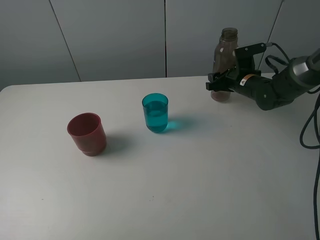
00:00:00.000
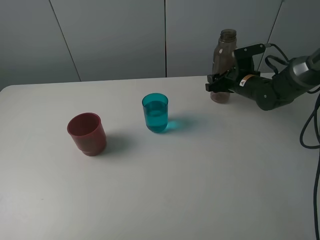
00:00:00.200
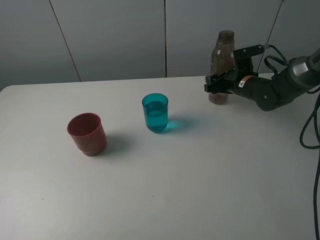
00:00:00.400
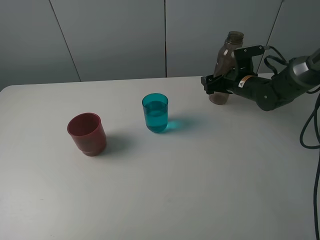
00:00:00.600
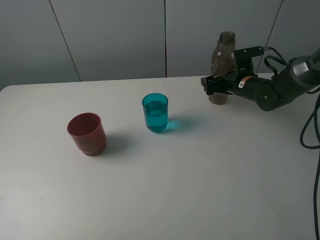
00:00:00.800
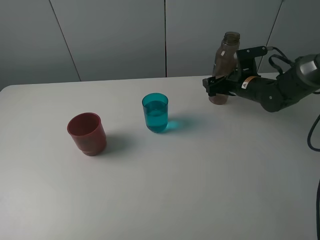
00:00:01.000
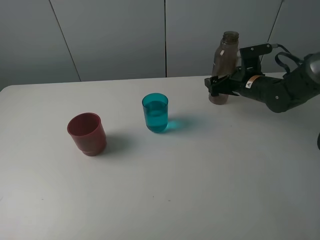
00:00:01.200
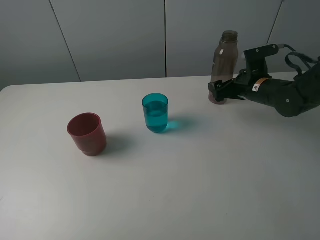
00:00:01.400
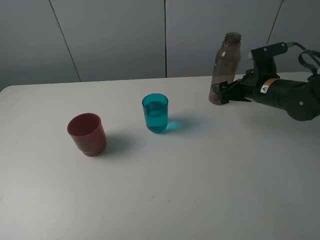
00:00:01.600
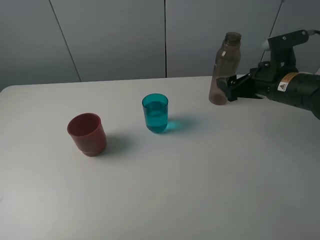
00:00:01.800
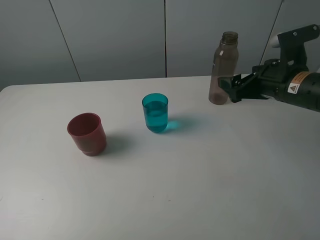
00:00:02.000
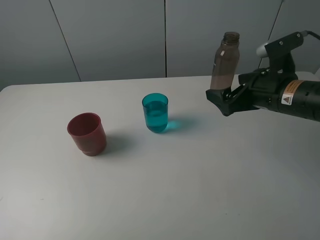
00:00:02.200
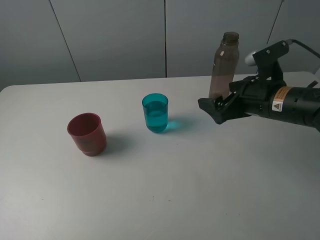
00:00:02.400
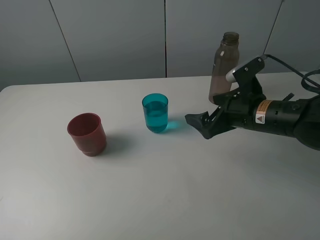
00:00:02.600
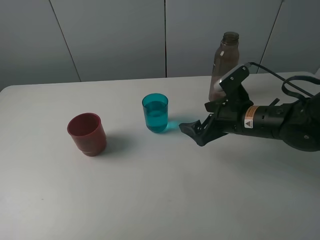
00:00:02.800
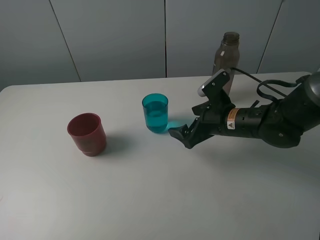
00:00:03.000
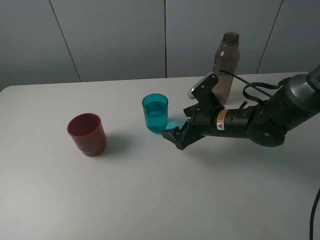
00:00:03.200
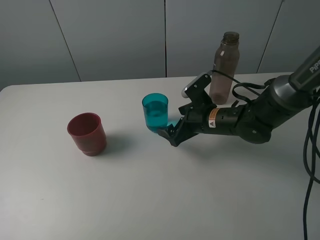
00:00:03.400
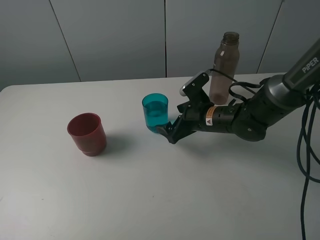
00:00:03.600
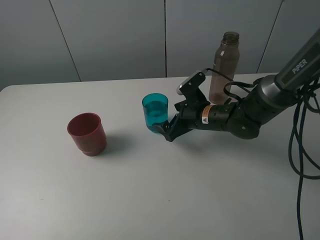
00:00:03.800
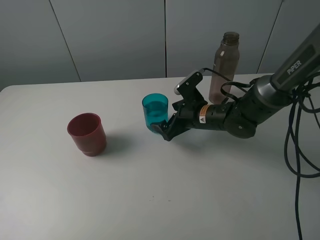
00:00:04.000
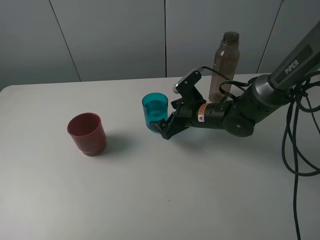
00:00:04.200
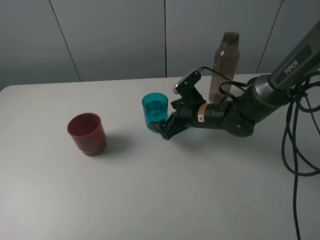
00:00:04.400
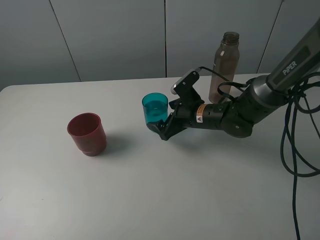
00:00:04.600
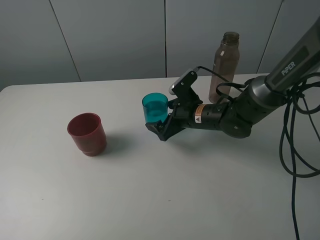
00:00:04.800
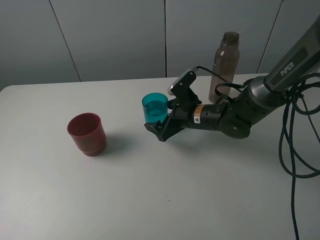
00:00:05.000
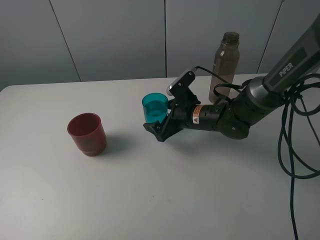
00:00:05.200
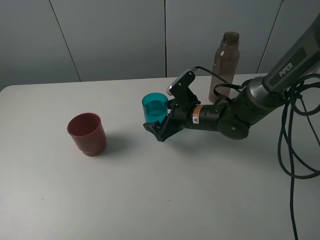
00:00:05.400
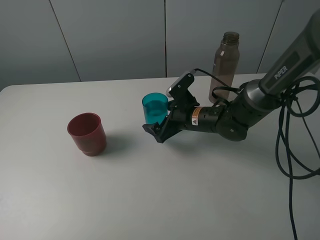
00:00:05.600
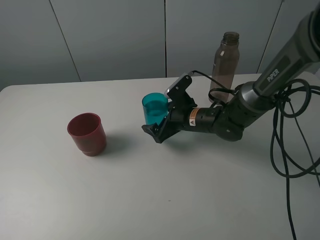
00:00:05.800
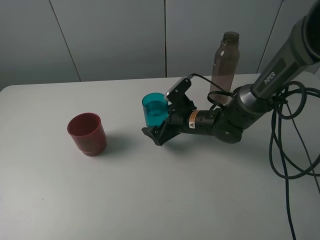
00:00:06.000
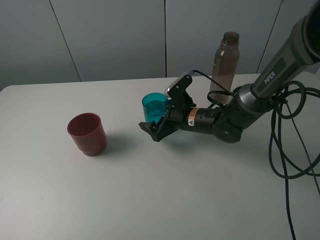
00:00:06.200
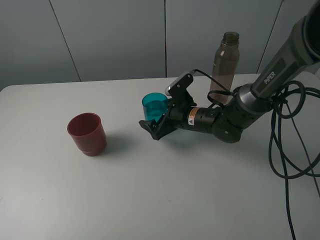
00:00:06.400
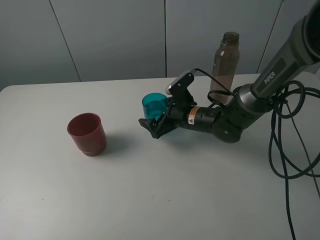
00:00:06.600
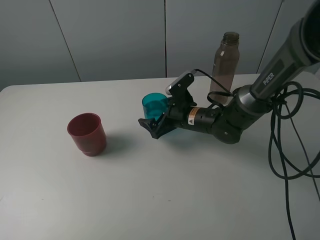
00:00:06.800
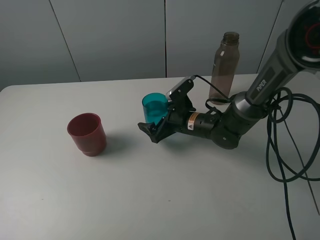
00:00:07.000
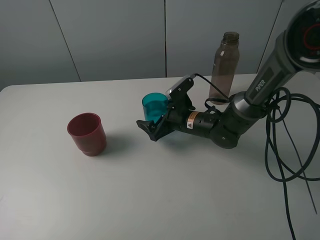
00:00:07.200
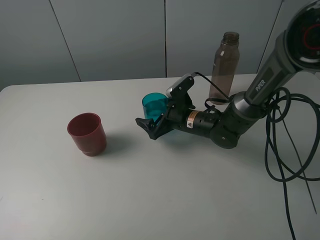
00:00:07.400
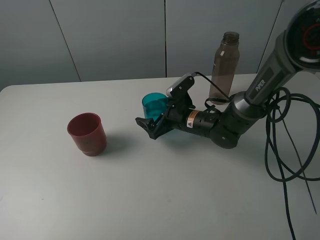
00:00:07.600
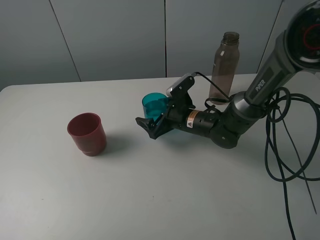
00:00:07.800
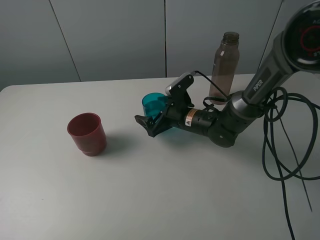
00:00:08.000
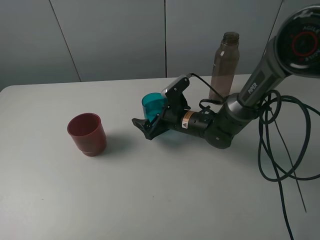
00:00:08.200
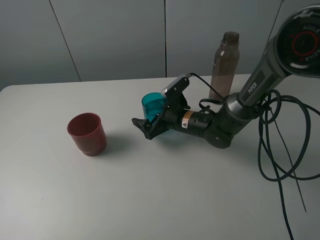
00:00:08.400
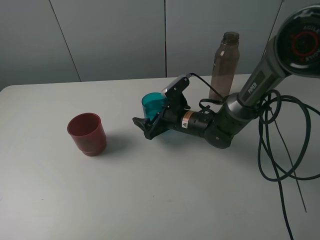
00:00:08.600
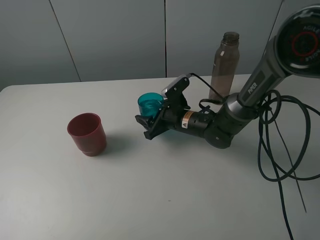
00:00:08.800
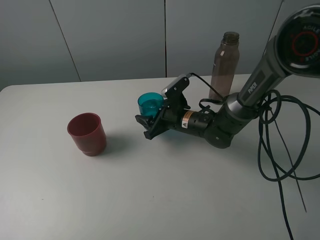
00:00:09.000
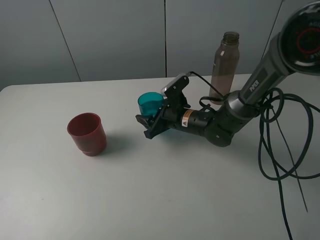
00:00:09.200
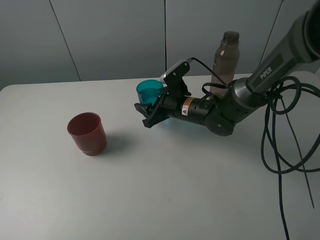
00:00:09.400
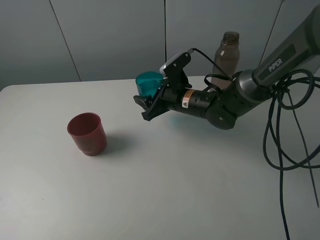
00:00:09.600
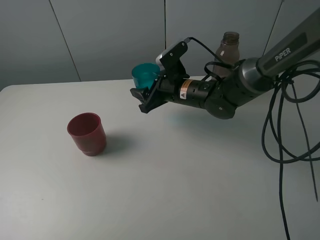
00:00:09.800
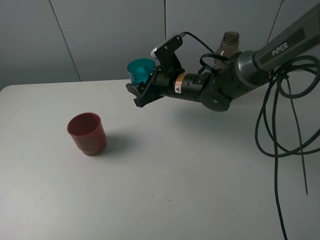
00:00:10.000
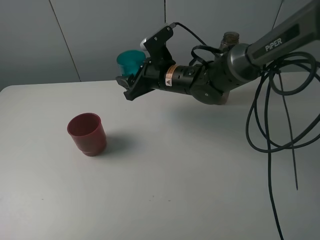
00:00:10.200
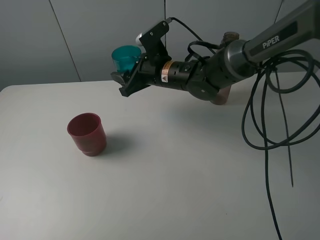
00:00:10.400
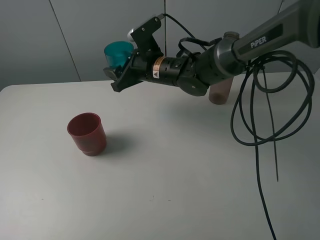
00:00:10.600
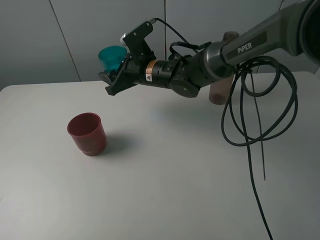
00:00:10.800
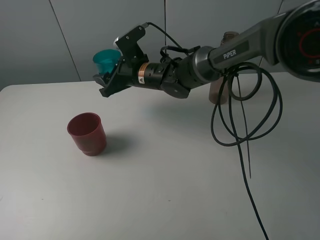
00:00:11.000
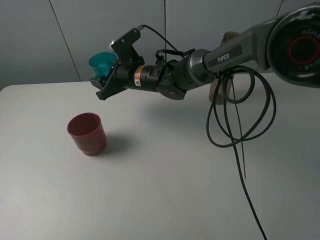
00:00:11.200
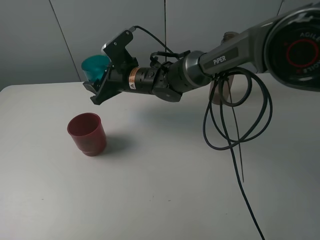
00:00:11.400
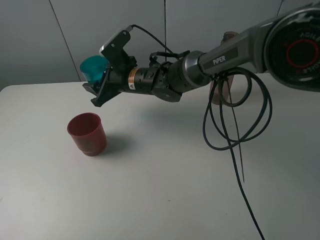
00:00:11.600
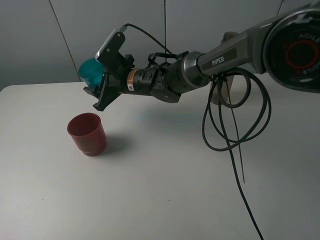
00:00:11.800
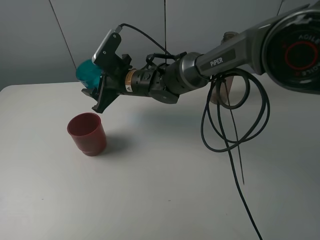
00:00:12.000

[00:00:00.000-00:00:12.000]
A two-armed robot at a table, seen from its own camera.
Task of the whole recording: pick up the bottle and pour water into the cup, then pick up the cup containing water and pour it into another cup.
Step, 00:00:00.800 to 00:00:08.800: Grasp the blue cup with the right gripper.
00:00:00.000 to 00:00:01.600: The right gripper travels backward by about 10 cm, and opens up.
00:00:01.600 to 00:00:03.000: The right gripper moves to the left and backward, roughly 10 cm.
00:00:03.000 to 00:00:04.400: The right gripper moves roughly 5 cm.
00:00:04.400 to 00:00:07.600: The grippers move only a little.
00:00:07.600 to 00:00:09.000: The right gripper closes its fingers.
00:00:09.000 to 00:00:10.400: The right gripper is displaced upward and to the left by about 15 cm.
00:00:10.400 to 00:00:12.000: The right gripper travels to the left by some 10 cm.

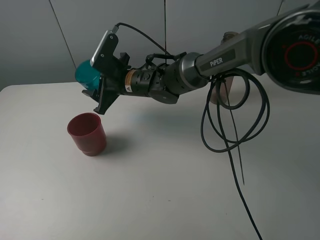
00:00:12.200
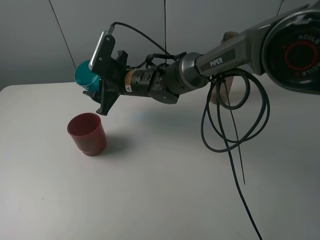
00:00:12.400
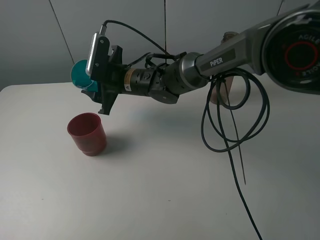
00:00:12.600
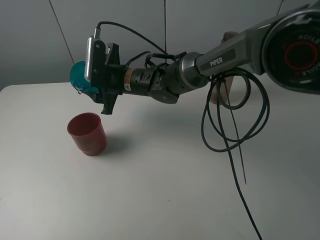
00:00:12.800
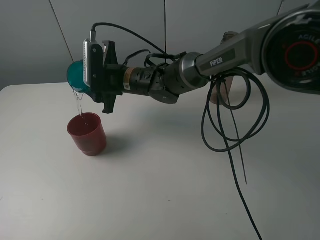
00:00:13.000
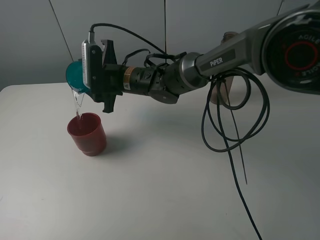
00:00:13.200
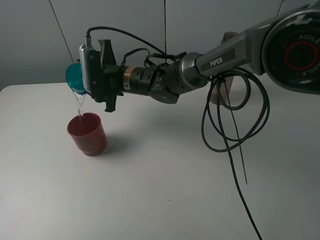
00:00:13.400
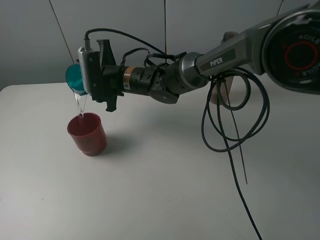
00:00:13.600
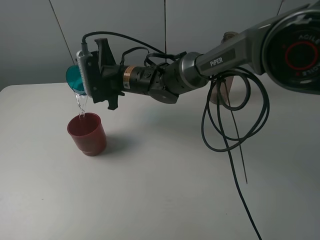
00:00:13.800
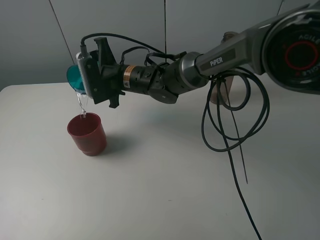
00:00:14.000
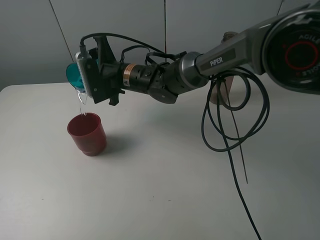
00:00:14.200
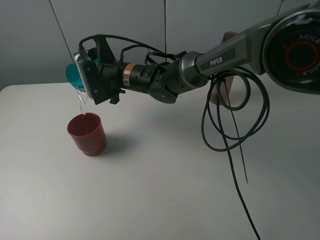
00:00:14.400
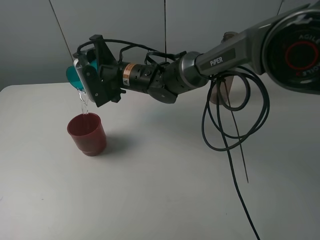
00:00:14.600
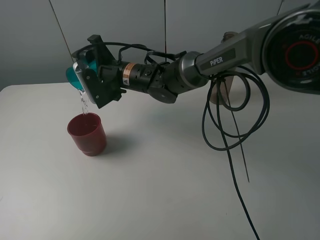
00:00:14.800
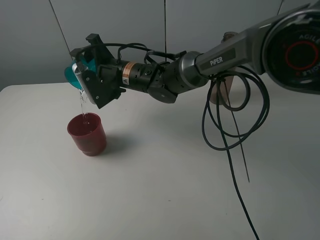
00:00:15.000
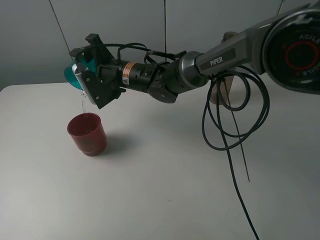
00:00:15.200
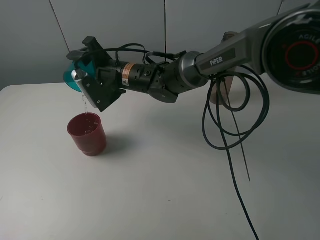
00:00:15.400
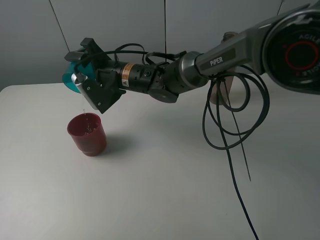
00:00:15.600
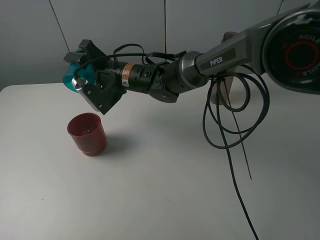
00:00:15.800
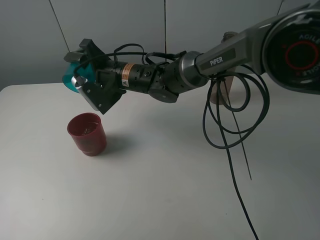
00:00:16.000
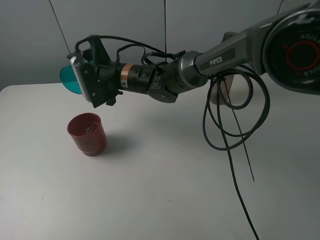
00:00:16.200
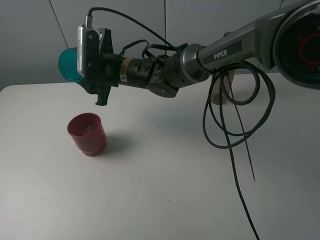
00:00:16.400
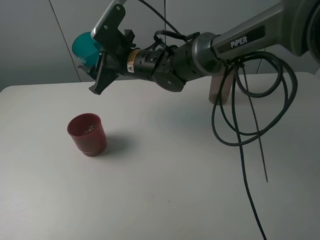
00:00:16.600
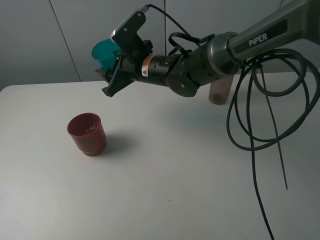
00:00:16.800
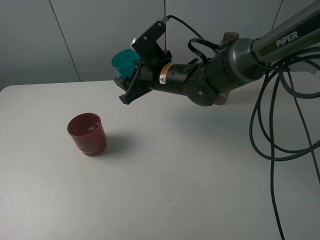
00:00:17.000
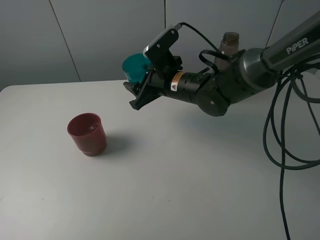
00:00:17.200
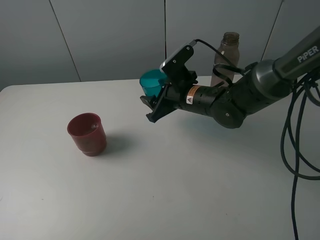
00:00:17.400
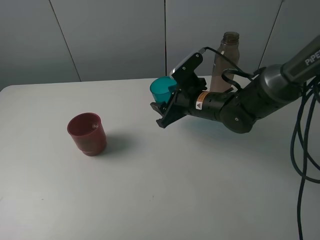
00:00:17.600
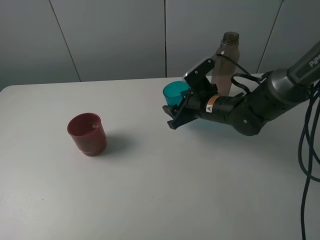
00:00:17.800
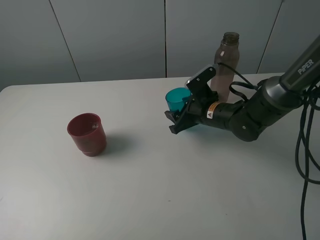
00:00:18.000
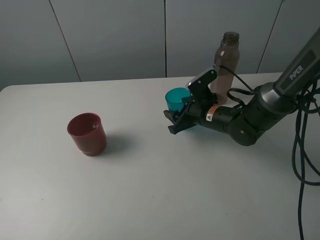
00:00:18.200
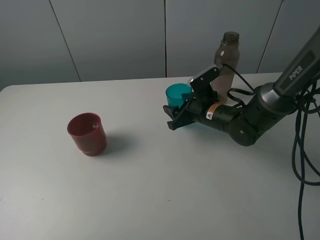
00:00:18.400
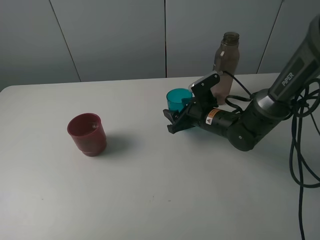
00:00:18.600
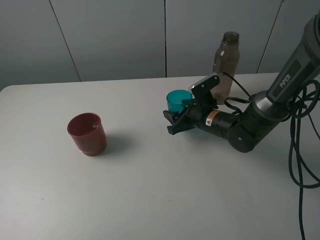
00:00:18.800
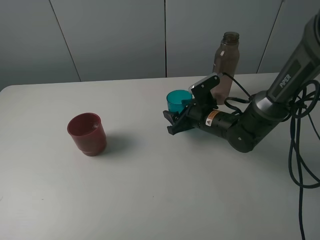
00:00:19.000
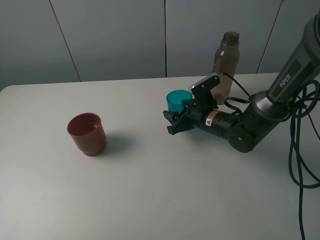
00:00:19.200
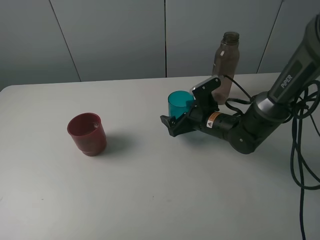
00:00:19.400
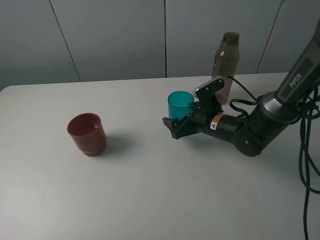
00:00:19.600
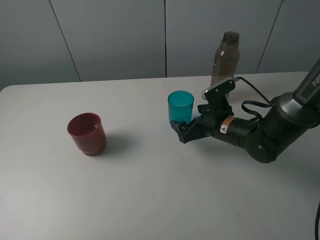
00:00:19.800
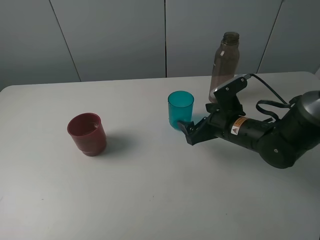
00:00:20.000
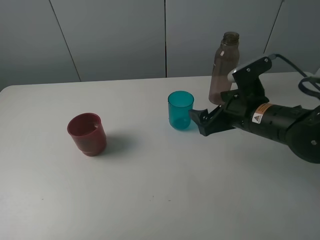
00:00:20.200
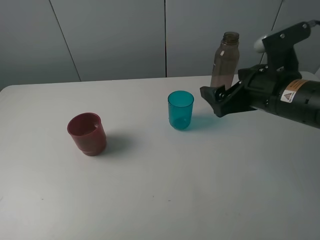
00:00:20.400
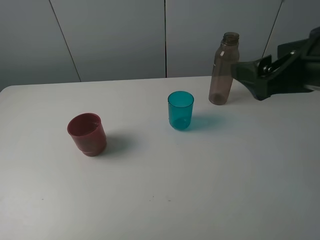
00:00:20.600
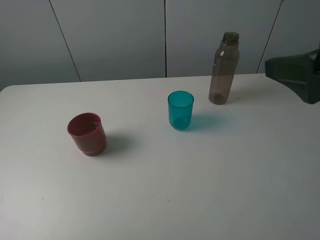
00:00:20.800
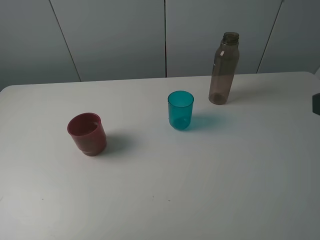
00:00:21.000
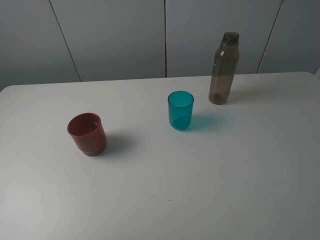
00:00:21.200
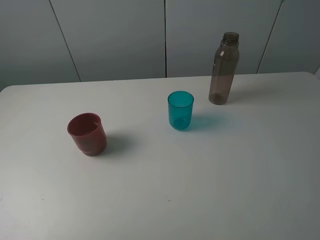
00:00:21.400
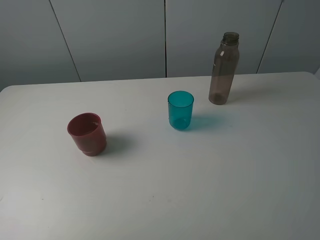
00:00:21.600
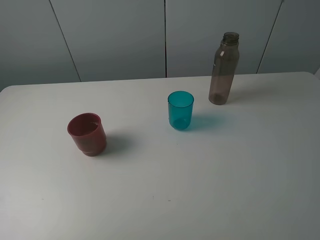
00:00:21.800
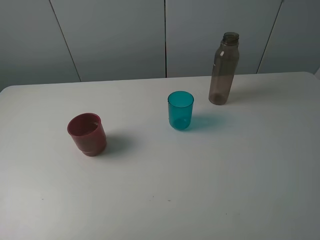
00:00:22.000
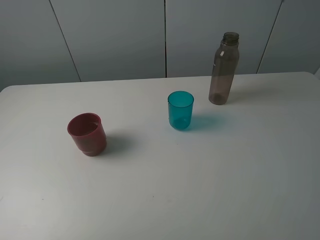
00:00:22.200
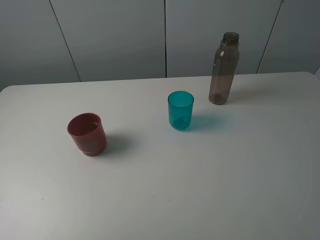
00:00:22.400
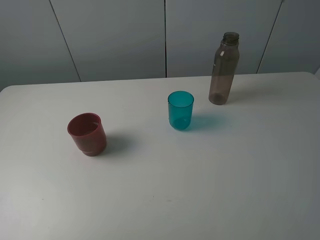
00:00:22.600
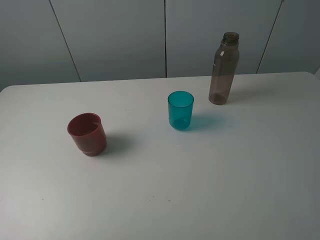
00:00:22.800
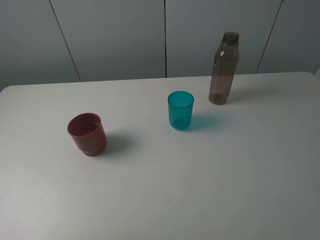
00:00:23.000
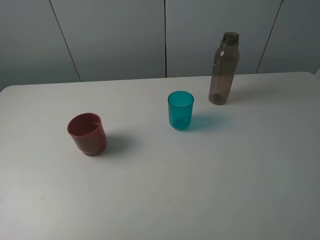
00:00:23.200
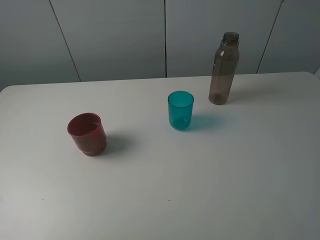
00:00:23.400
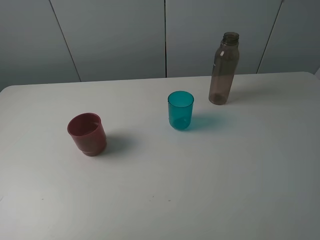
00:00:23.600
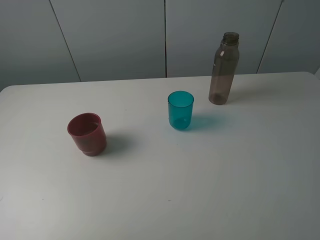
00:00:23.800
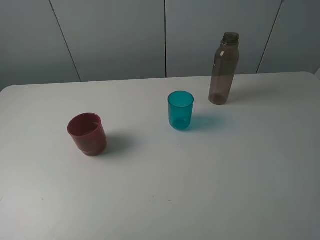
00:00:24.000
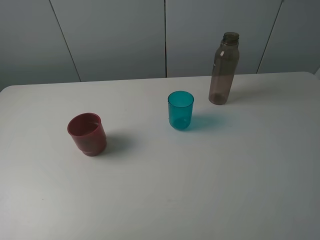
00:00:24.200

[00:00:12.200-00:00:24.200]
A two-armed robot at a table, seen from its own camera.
Task of the whole recording: pick up the bottle and pour water into the cup, then pick up the cup containing water and pour it into another cup.
Step, 00:00:12.200 to 00:00:15.800: Pour water from blue cup to red cup with the right gripper.
Step, 00:00:16.000 to 00:00:19.400: Place the blue cup with the right gripper.
00:00:16.600 to 00:00:18.200: The right gripper goes some 20 cm to the right and downward.
00:00:18.200 to 00:00:19.800: The right gripper changes place by some 5 cm, and opens.
00:00:19.800 to 00:00:21.200: The right gripper travels backward, upward and to the right by some 35 cm.
00:00:22.600 to 00:00:24.200: Both grippers stay about where they are.
